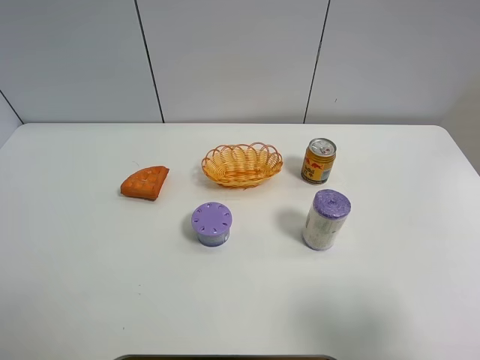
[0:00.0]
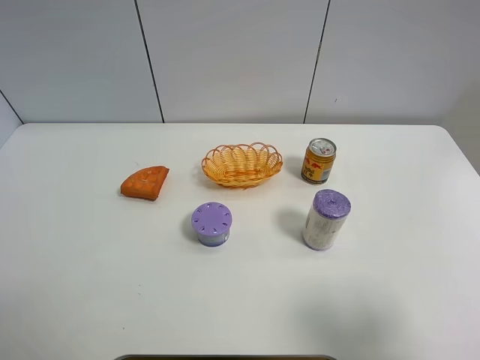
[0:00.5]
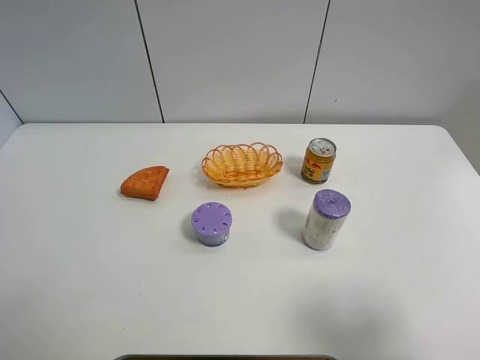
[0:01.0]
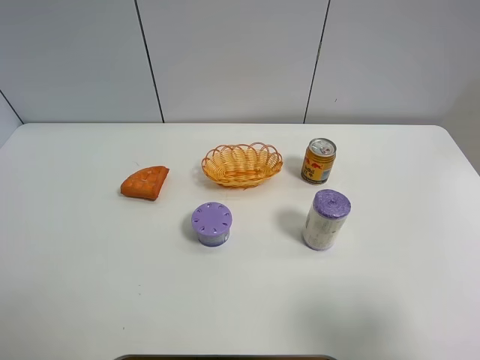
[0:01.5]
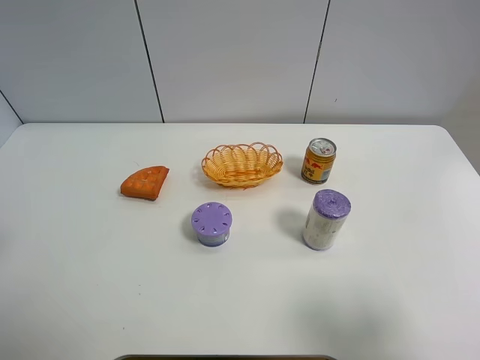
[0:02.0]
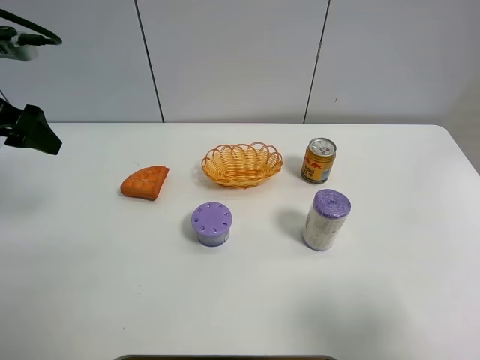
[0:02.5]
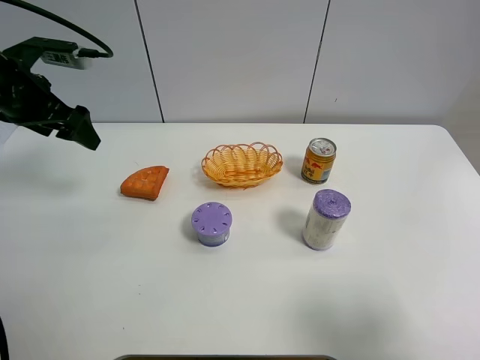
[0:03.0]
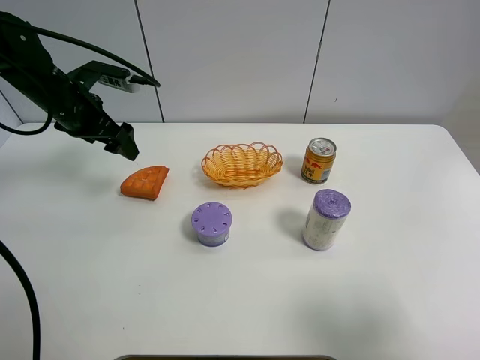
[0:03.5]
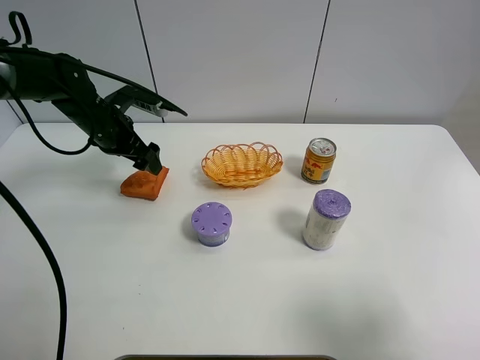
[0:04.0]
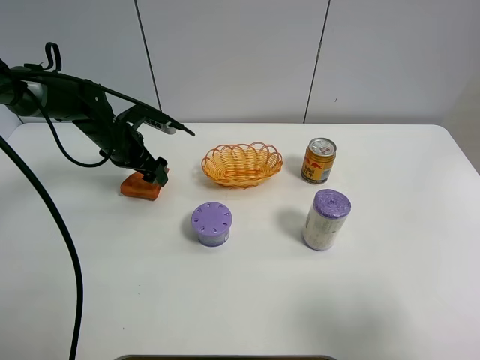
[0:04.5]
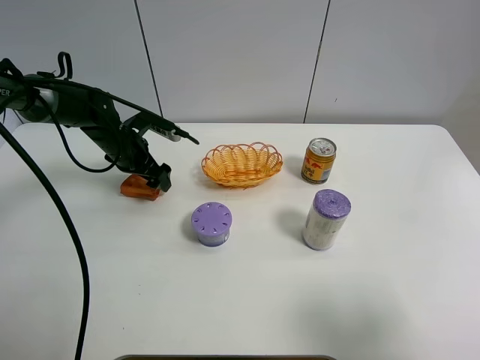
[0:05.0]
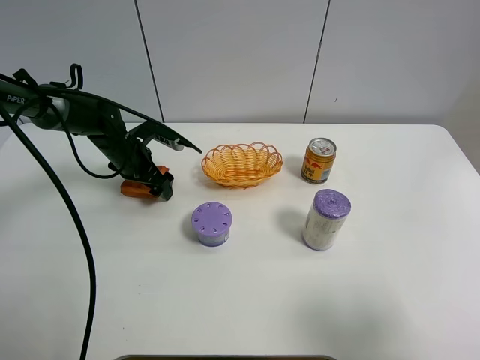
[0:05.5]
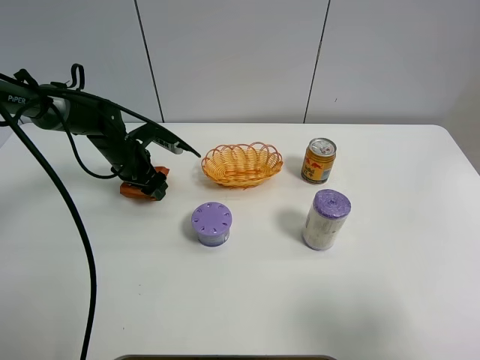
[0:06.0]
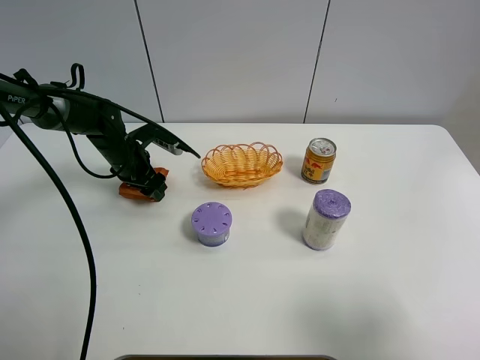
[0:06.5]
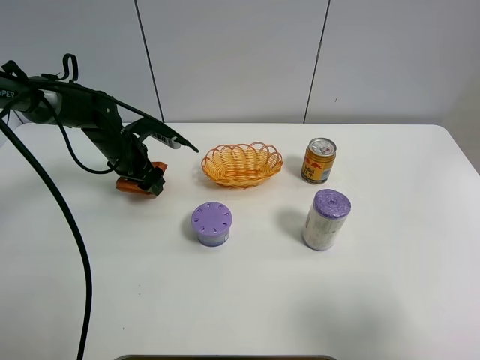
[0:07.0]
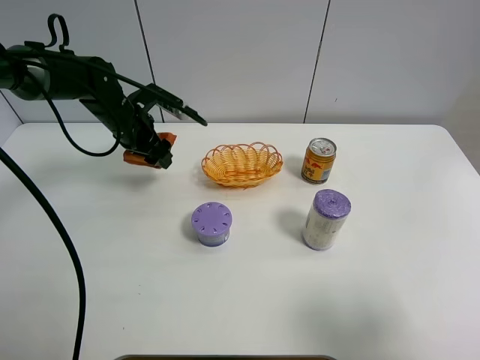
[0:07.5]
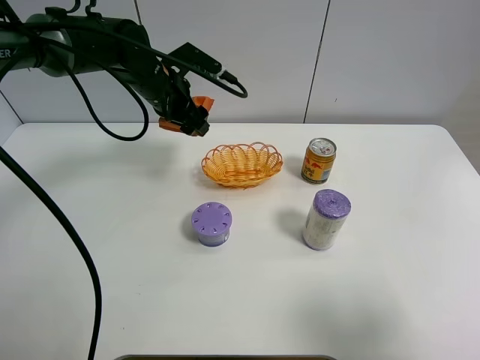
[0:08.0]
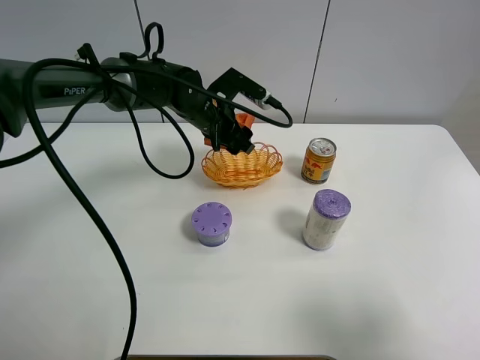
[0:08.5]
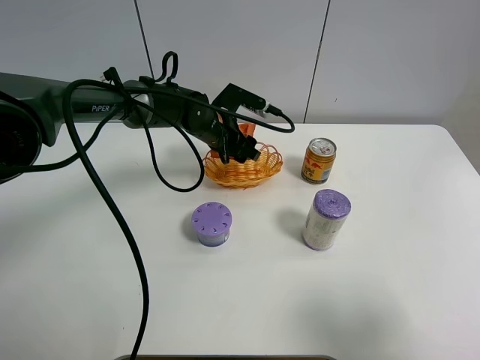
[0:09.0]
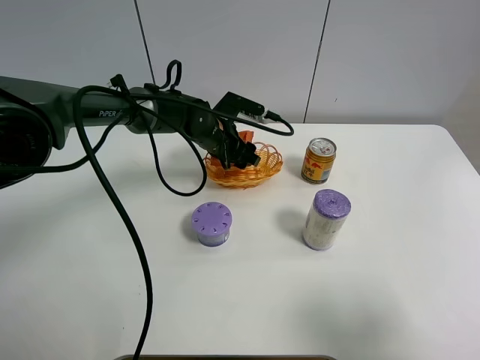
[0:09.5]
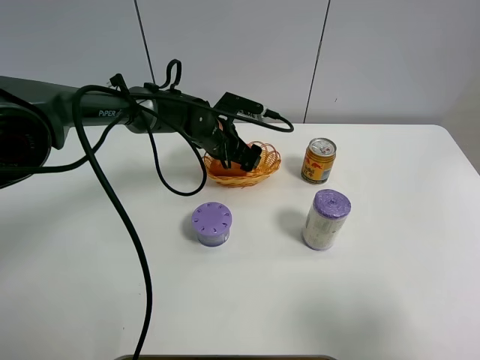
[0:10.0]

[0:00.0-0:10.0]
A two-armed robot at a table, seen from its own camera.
Task of the whole recording: Put the bakery in the basket.
0:02.0 to 0:04.0: The left gripper goes about 30 cm forward, downward and to the right.
0:04.0 to 0:06.0: The left gripper heads downward, covering roughly 5 cm, and closes up.
0:06.0 to 0:08.0: The left gripper moves upward and to the right, some 15 cm.
0:08.0 to 0:10.0: The left gripper is displaced downward and to the right by roughly 10 cm, and opens up.

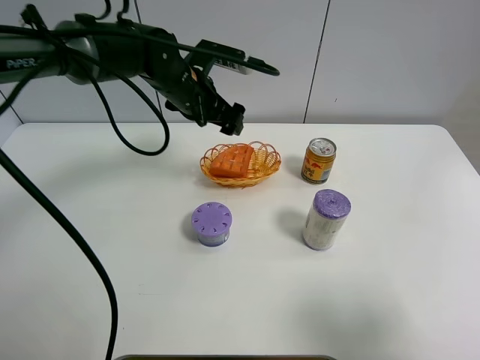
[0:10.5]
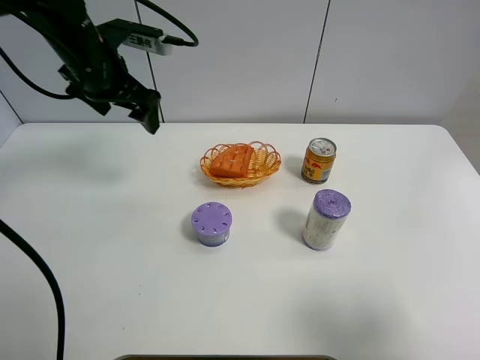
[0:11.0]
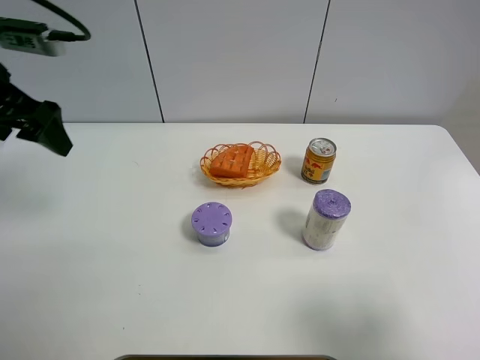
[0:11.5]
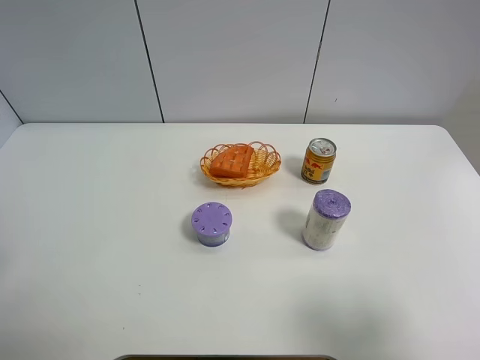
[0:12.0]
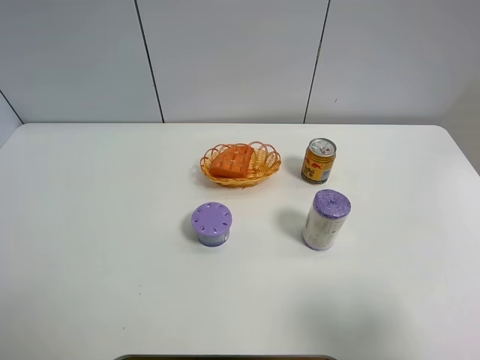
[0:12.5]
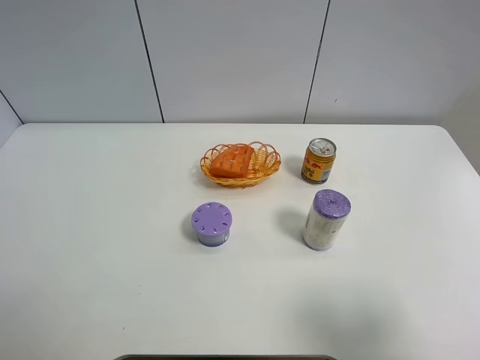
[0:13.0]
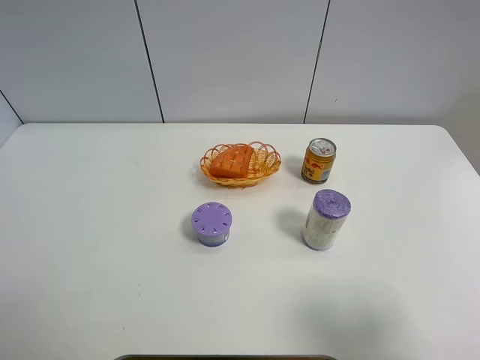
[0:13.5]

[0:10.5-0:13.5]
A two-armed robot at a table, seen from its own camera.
Task of the whole recording: Put the bakery in the basket.
0:10.5 to 0:12.0: The left gripper shifts approximately 35 cm backward and to the left.
